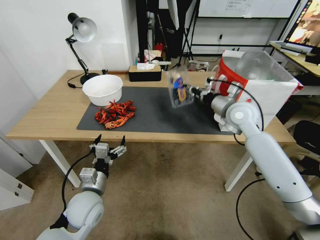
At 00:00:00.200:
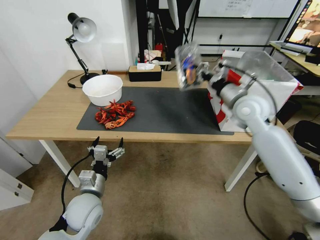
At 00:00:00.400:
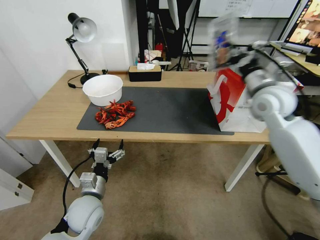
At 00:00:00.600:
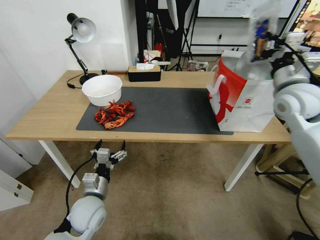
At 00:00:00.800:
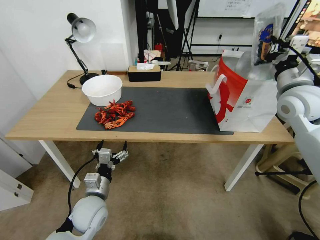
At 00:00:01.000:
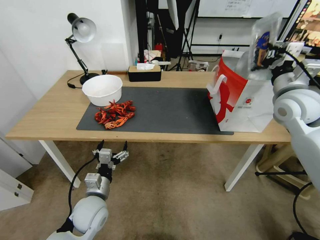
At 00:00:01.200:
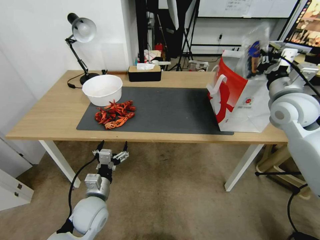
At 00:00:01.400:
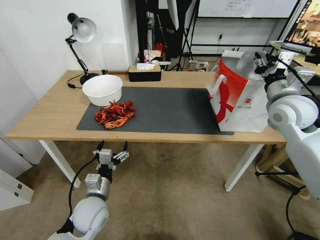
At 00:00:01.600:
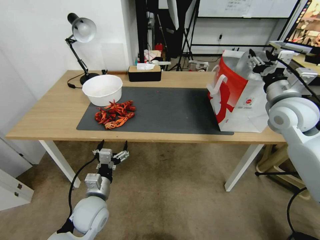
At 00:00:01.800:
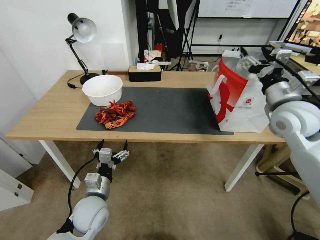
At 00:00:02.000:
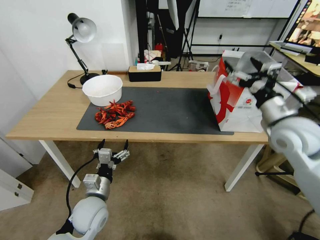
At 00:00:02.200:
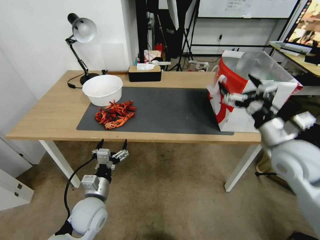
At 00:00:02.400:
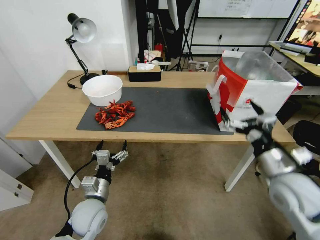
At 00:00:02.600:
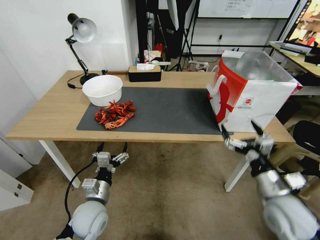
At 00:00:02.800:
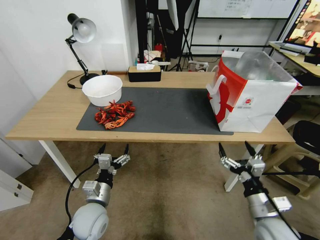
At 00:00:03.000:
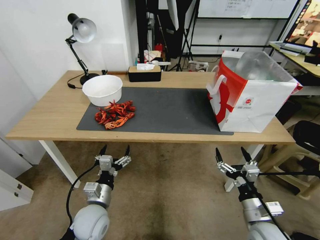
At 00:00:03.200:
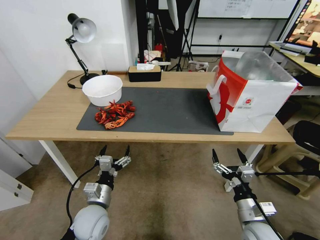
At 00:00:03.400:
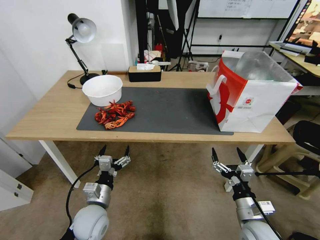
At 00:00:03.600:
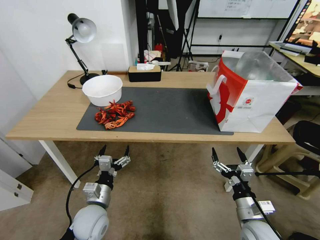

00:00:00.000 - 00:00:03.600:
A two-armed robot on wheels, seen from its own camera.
Task of the whole recording: Close the takeout container lid, then place the container into the takeout bag.
00:00:00.000 - 00:00:01.800: The right gripper is displaced to the right and backward by about 10 cm, and opens its fingers.
00:00:01.800 - 00:00:03.600: The right gripper heads downward and backward, covering approximately 35 cm.
